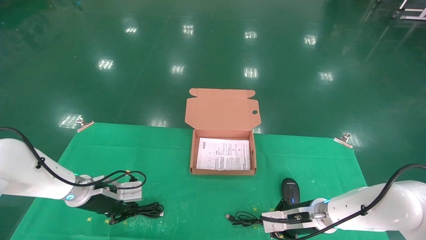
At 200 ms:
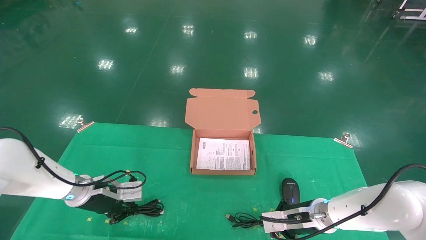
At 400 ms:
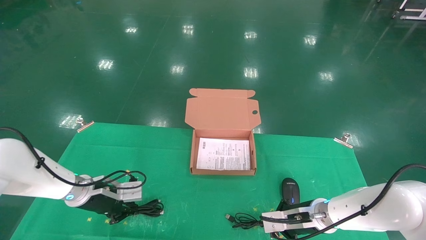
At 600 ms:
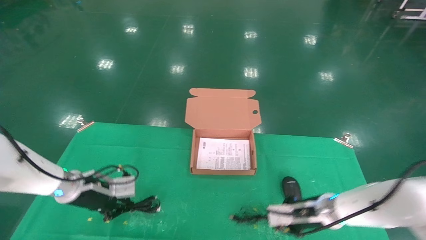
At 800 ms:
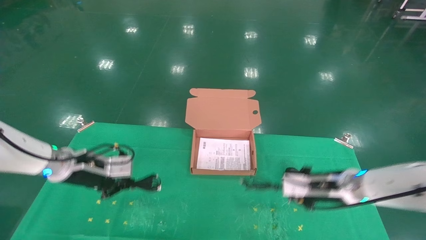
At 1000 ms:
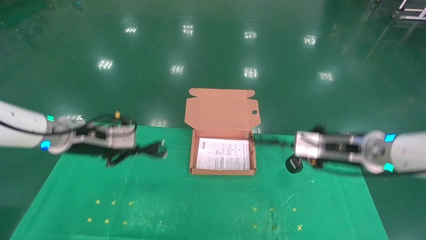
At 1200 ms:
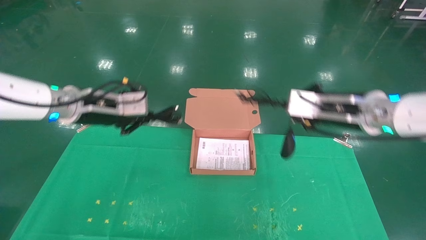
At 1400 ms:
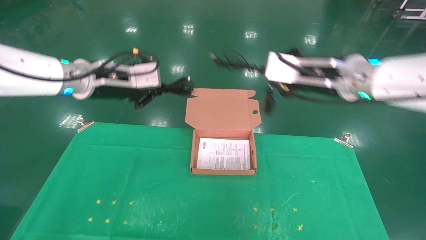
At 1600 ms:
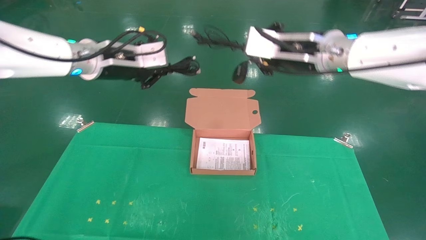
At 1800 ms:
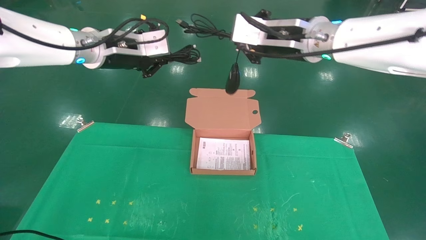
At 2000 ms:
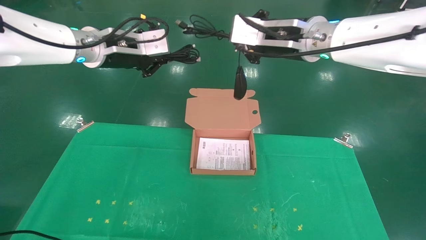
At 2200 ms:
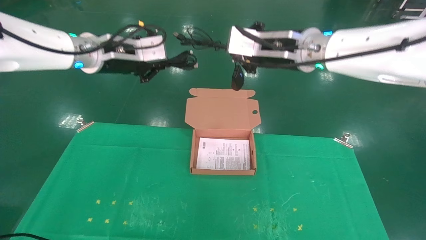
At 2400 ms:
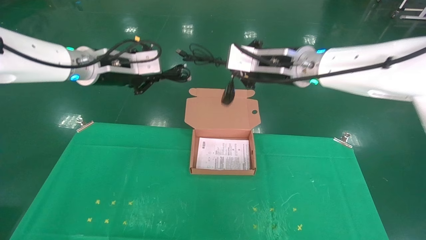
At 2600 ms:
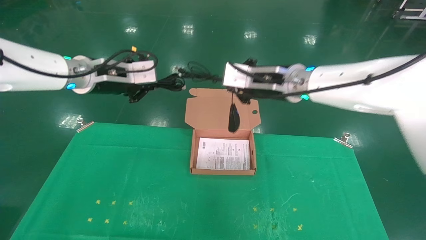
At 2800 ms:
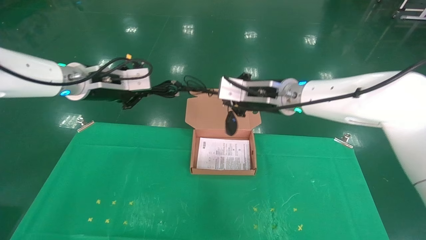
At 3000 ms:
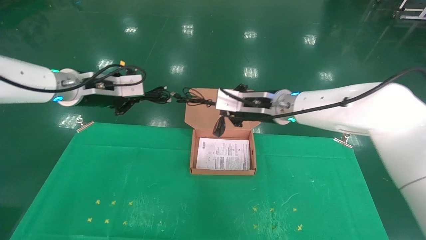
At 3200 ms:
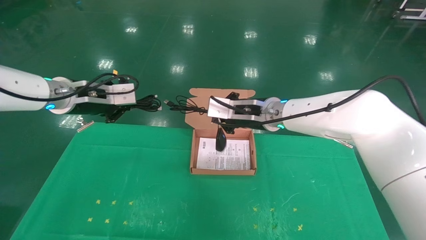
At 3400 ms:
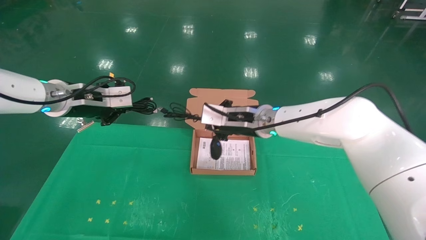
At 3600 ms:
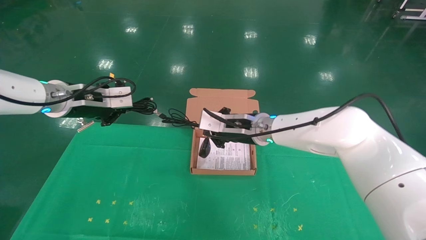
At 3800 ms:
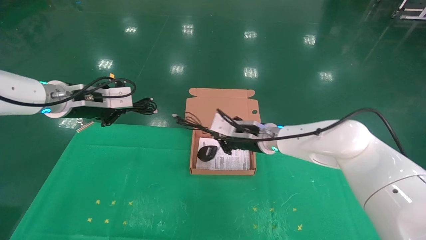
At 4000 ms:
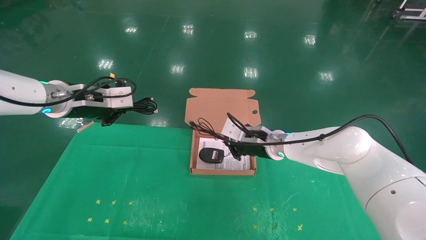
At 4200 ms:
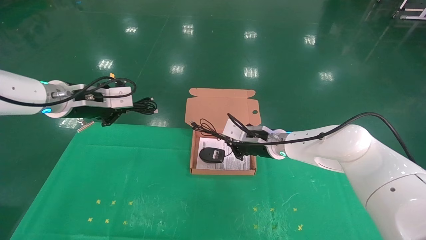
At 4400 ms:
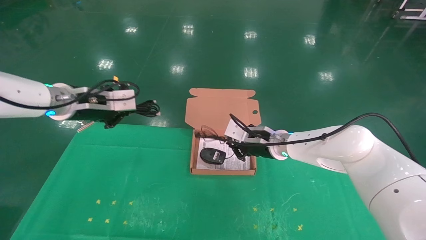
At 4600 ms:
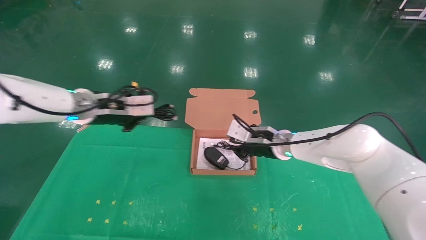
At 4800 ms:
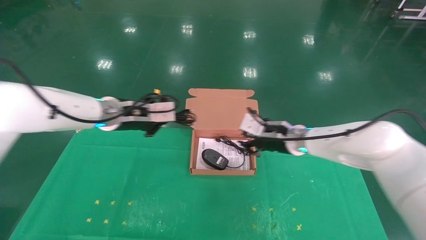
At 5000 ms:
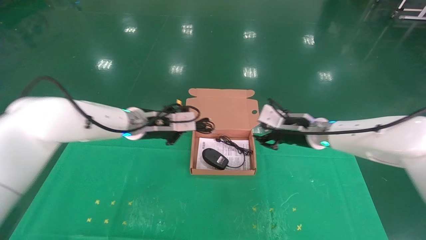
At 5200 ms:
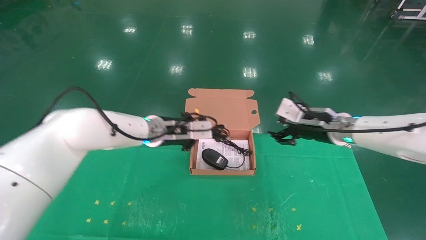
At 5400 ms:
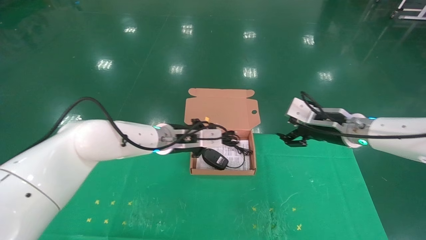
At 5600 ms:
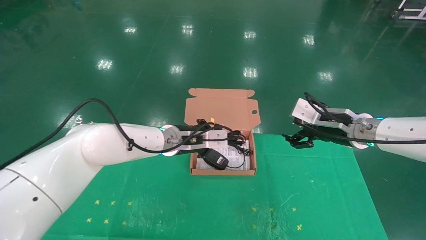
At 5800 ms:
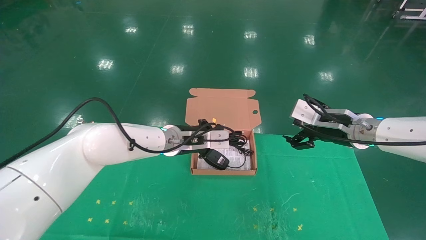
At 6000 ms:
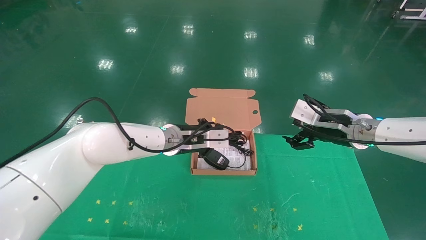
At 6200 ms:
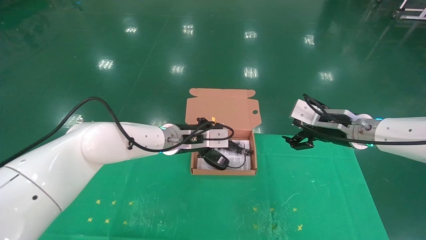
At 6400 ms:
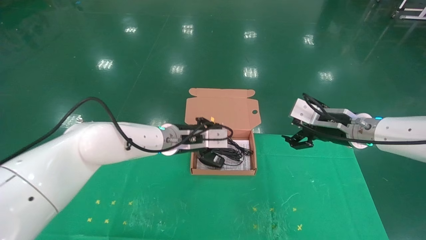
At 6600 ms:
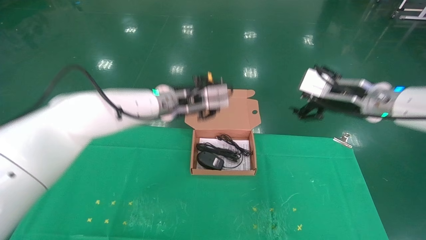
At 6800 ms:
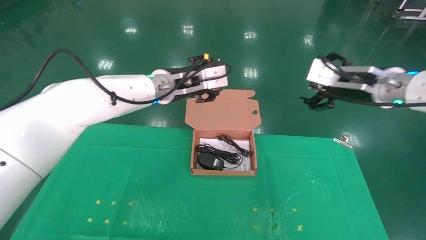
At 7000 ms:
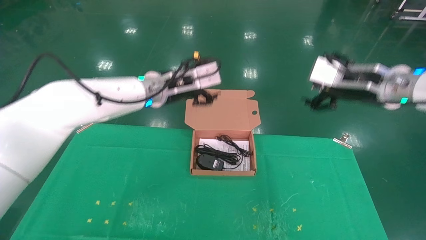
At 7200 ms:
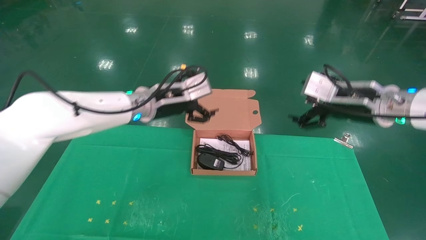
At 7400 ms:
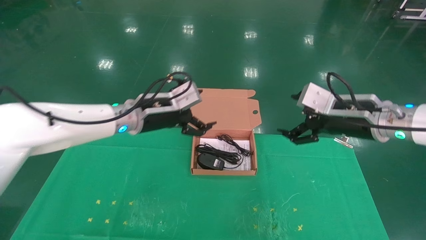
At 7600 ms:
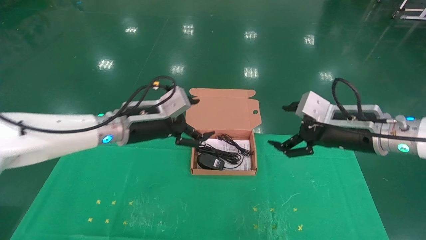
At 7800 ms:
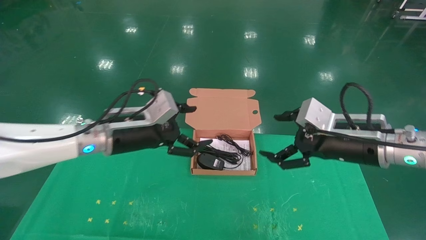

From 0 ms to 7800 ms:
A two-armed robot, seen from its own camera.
Task of the whole recording: grasp data cable left put into box grasp mouse right put into box.
Step, from 400 ms to 5800 ms: Place the mouse and power cord into the box.
From 0 ms to 1600 ms: The two grippers go some 30 cm upward.
From 1600 ms to 3200 ms: The left gripper goes about 10 cm to the left and downward, while the right gripper moves downward, to the left and forward, approximately 15 cm.
From 3200 ms to 4600 ms: The left gripper changes place by about 5 cm. Meanwhile the right gripper goes approximately 10 cm downward and to the right.
From 4600 ms to 6200 ms: The right gripper goes approximately 15 cm to the right, backward and upward, and opens its fingers, while the left gripper is displaced to the right and downward by approximately 15 cm.
From 6200 ms to 7800 ms: The right gripper heads backward, covering approximately 10 cm. The left gripper shifts about 15 cm to the left and backward, and opens up.
